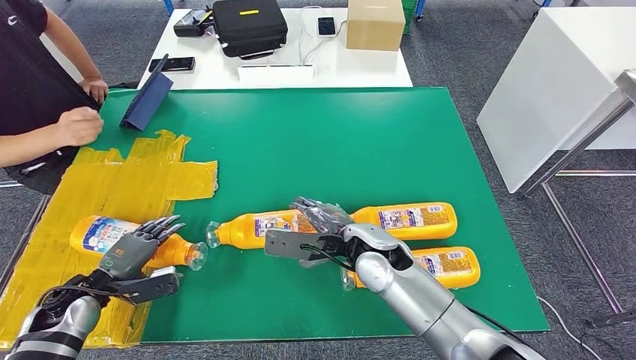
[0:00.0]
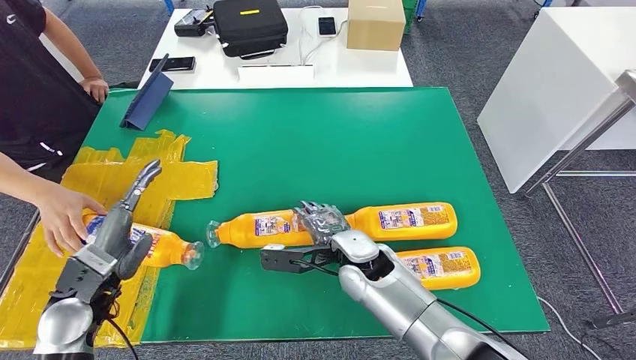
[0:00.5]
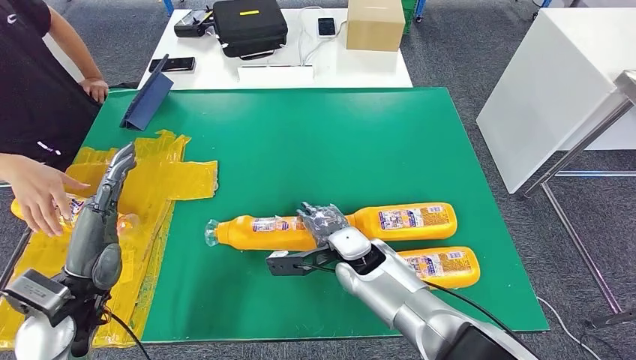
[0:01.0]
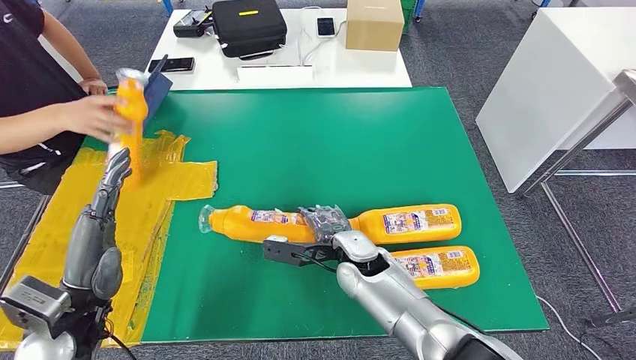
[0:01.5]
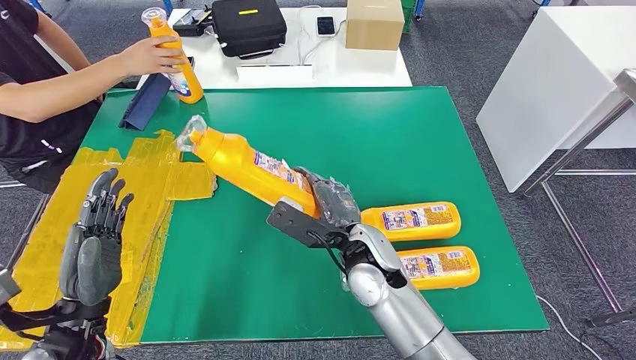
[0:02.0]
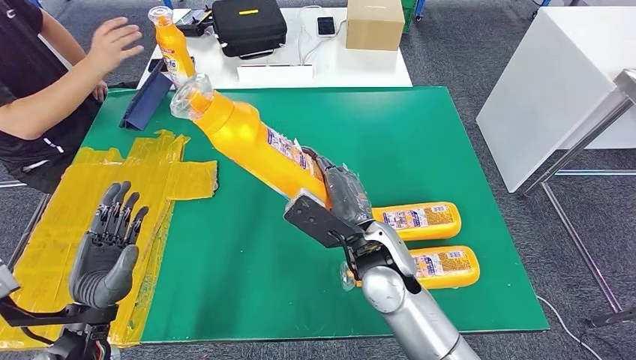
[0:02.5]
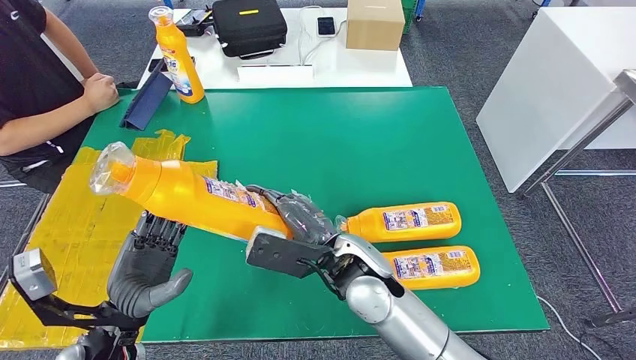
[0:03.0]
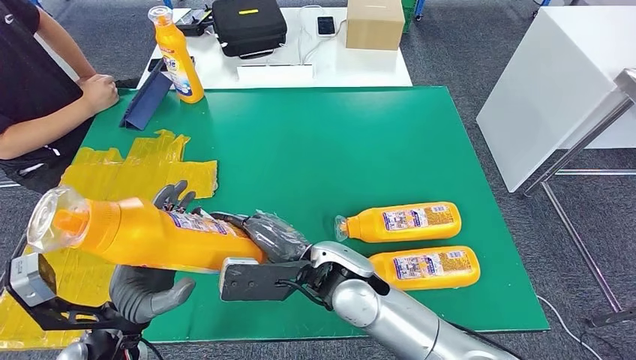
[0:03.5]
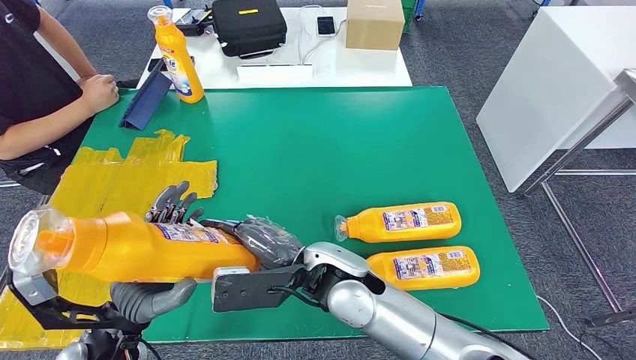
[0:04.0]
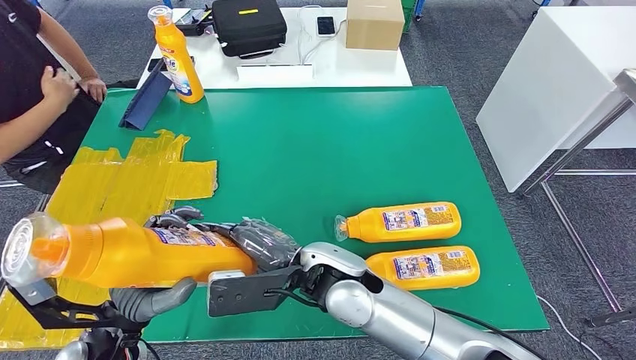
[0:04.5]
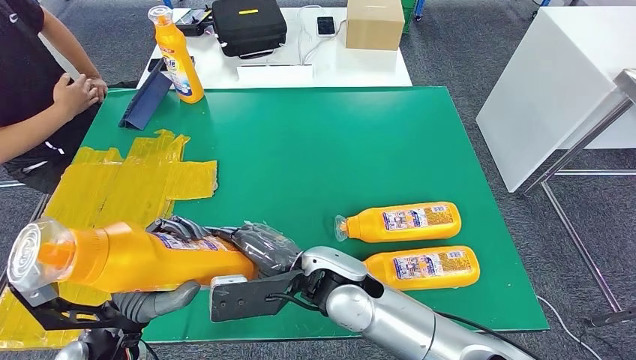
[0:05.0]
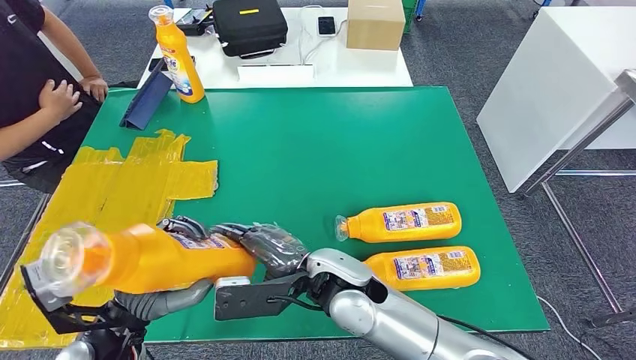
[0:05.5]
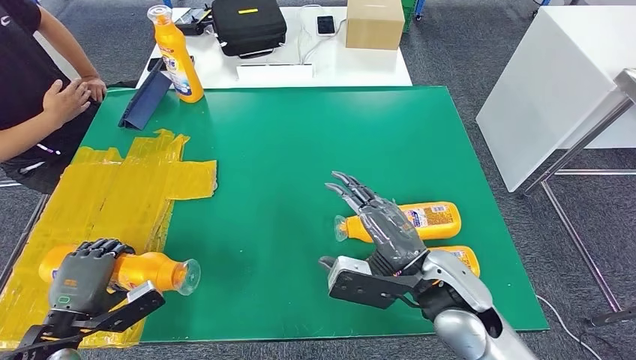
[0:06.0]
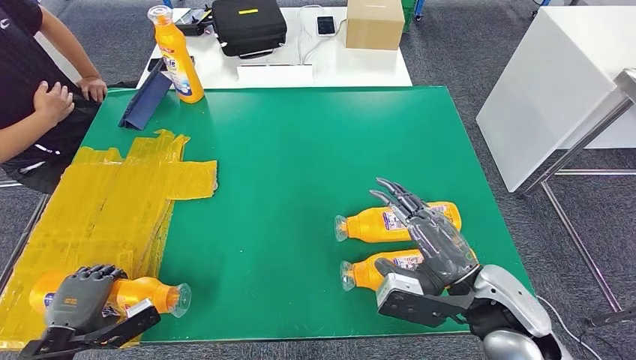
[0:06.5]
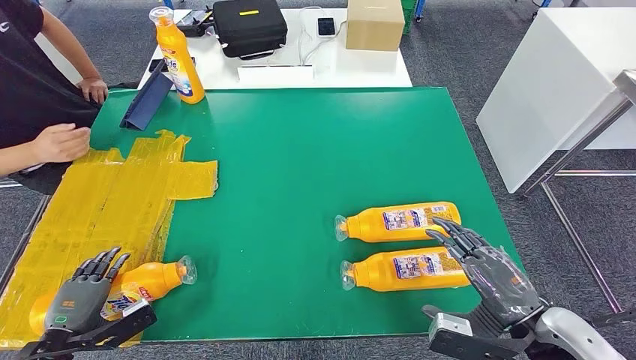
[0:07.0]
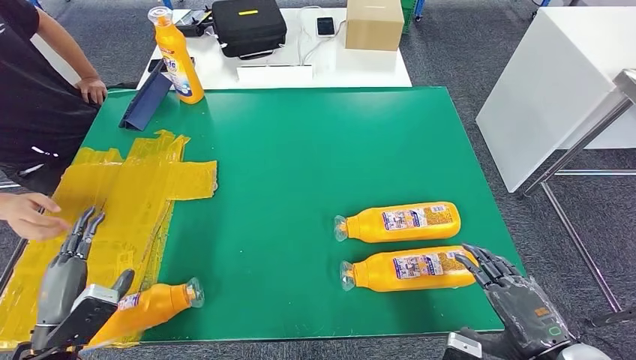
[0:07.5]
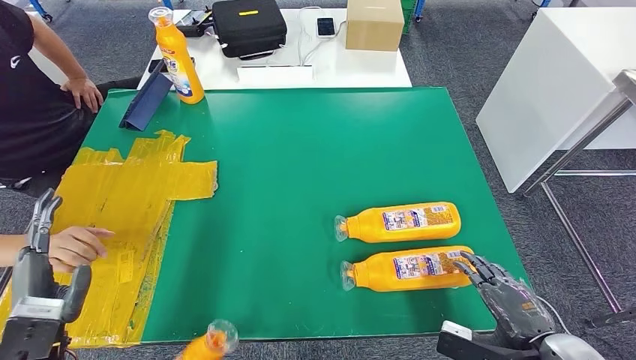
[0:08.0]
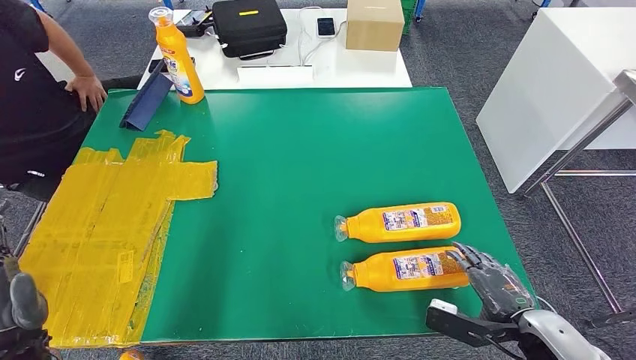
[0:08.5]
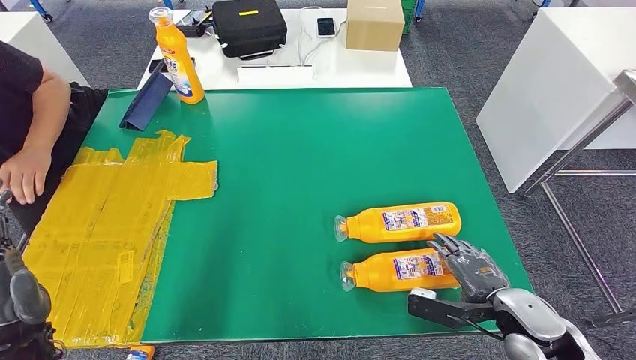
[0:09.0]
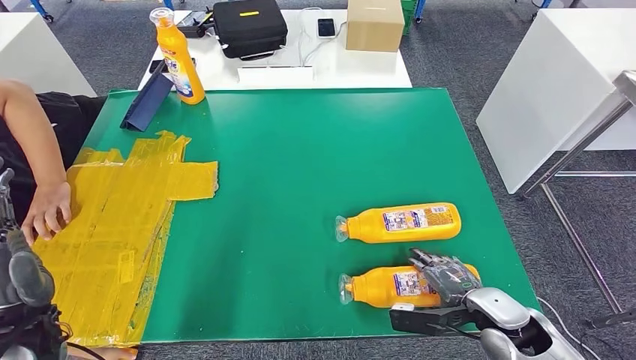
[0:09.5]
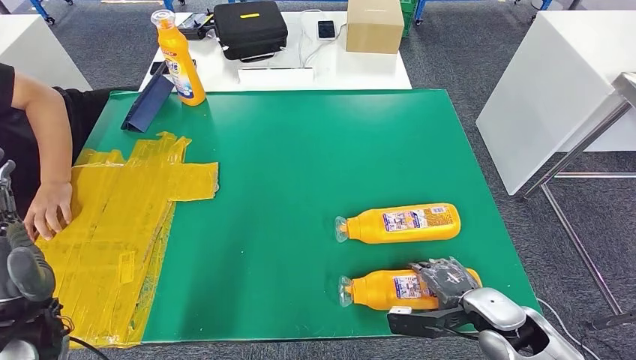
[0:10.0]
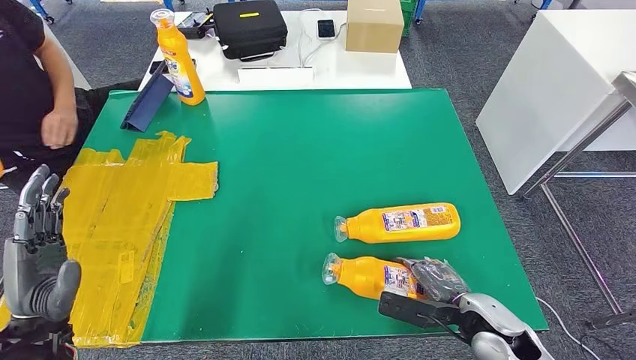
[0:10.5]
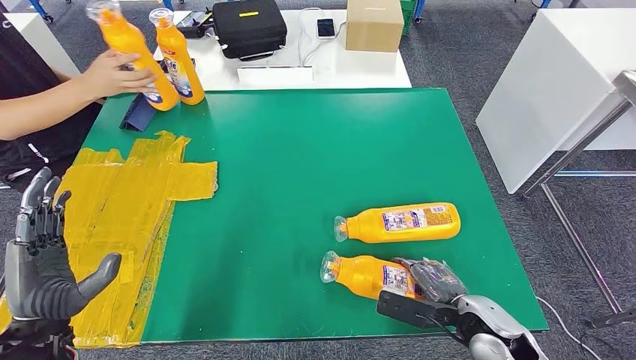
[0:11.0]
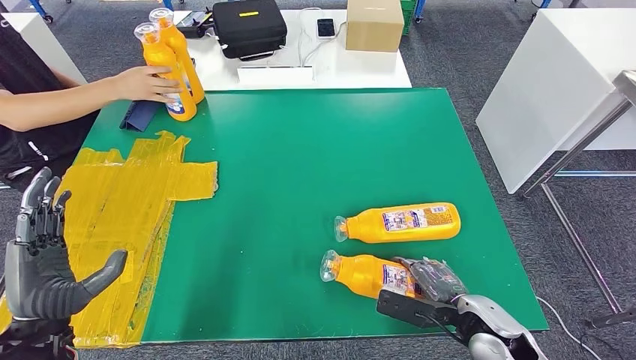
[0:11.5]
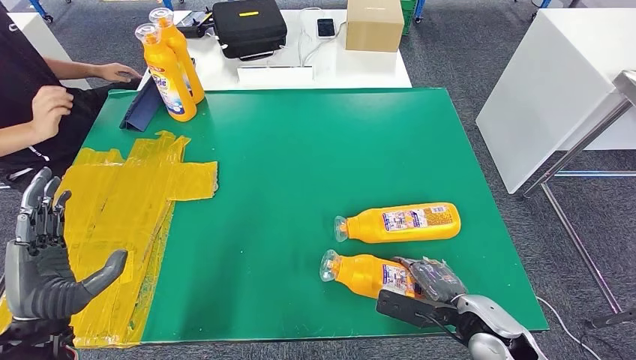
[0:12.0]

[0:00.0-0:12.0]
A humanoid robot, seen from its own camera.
Step, 0:01.0 to 0:03.0: Pick up the fast-moving consumer goods bottle from the table.
Step, 0:04.0 to 0:07.5: Flip the fast-moving consumer goods bottle to the front side.

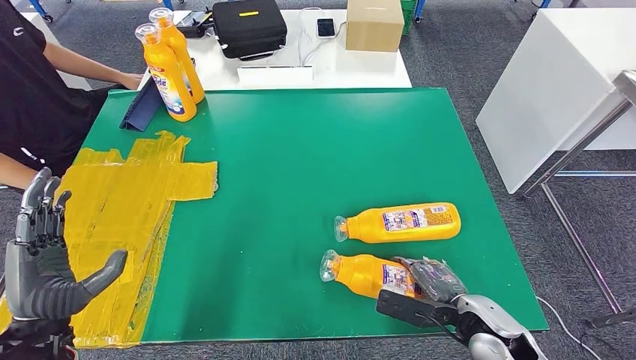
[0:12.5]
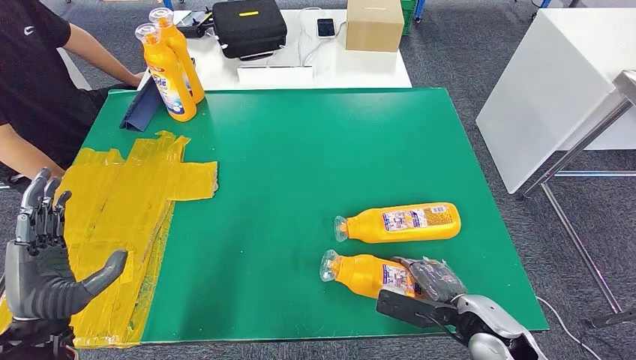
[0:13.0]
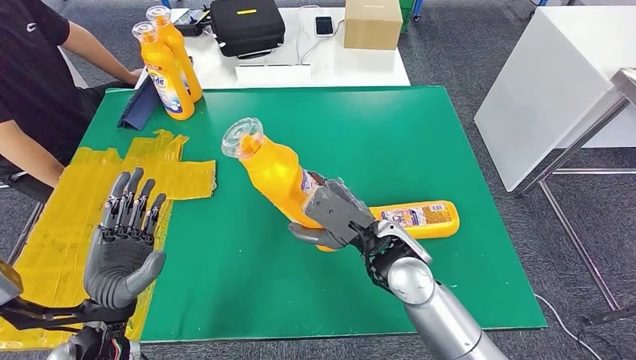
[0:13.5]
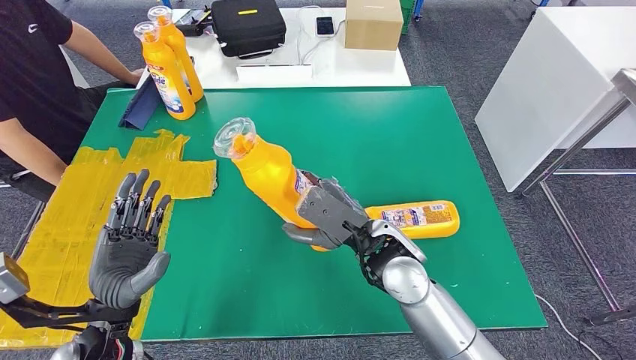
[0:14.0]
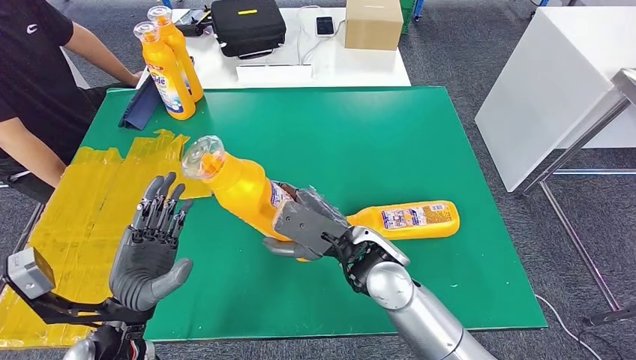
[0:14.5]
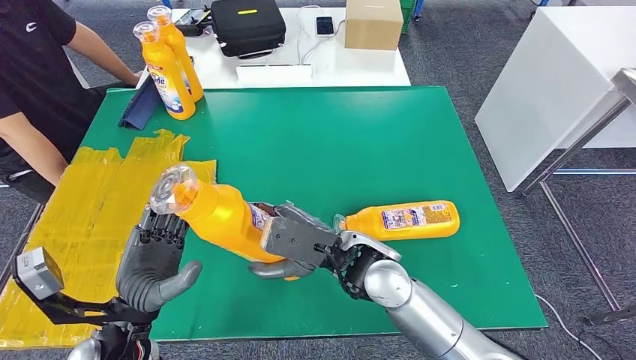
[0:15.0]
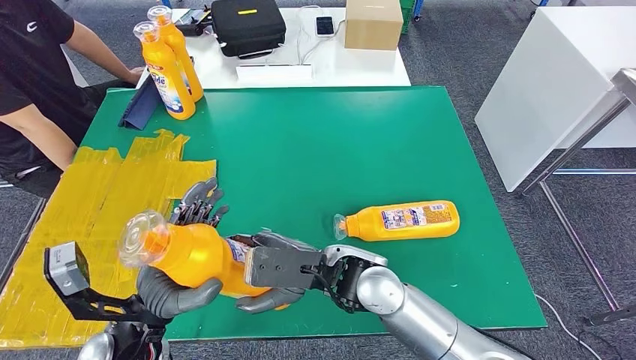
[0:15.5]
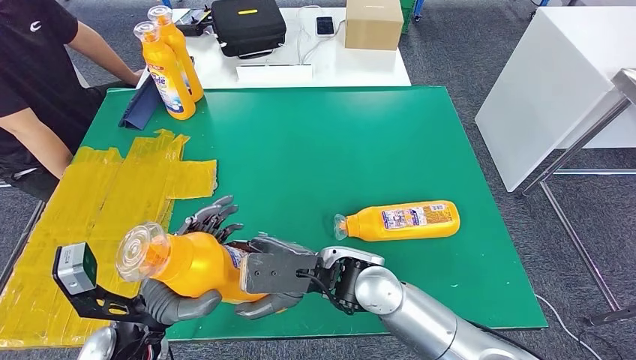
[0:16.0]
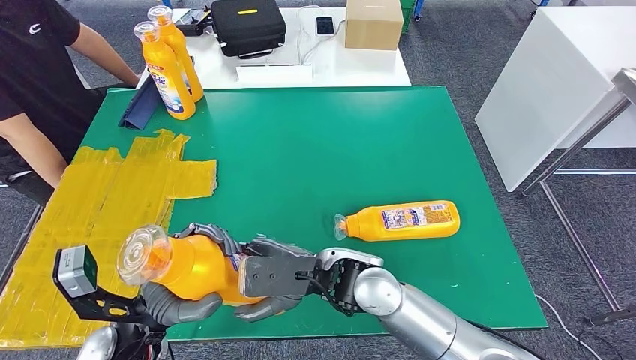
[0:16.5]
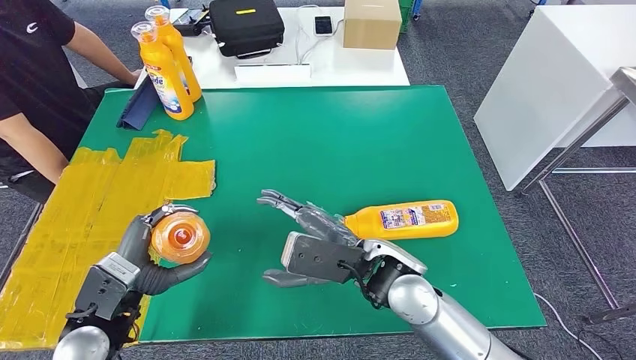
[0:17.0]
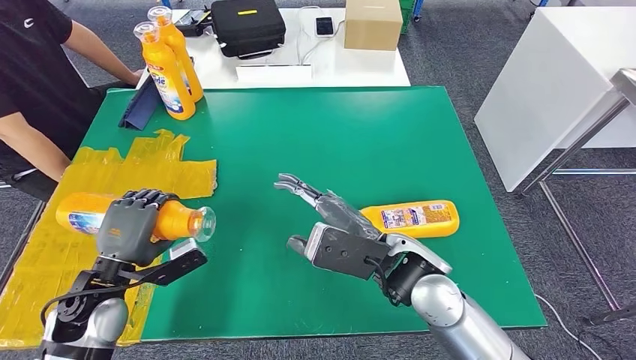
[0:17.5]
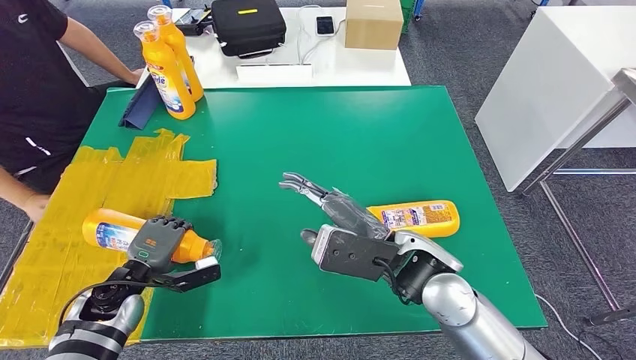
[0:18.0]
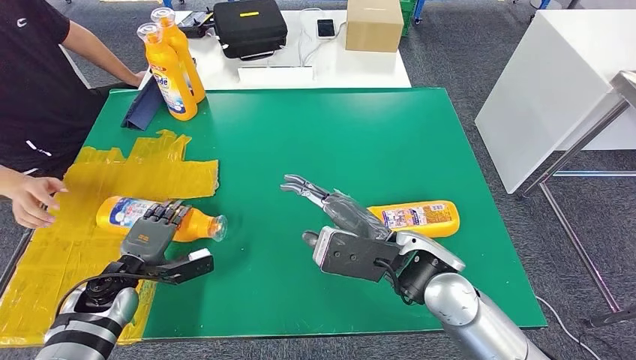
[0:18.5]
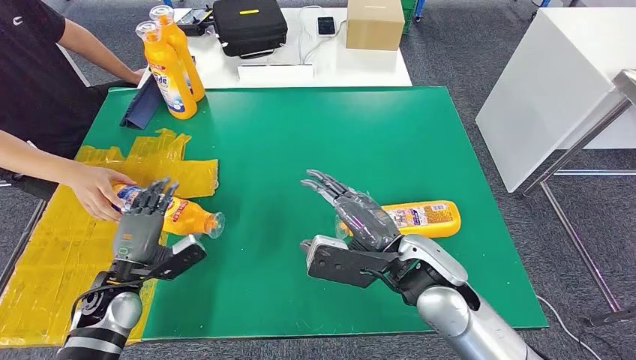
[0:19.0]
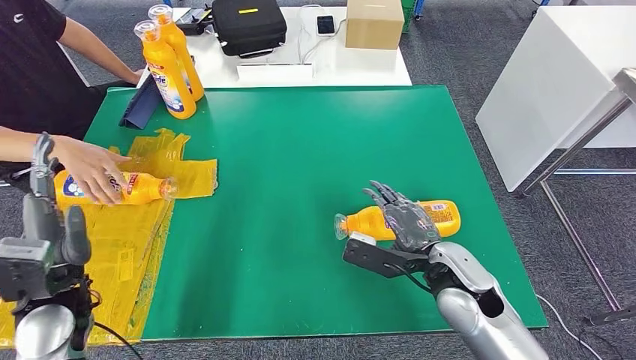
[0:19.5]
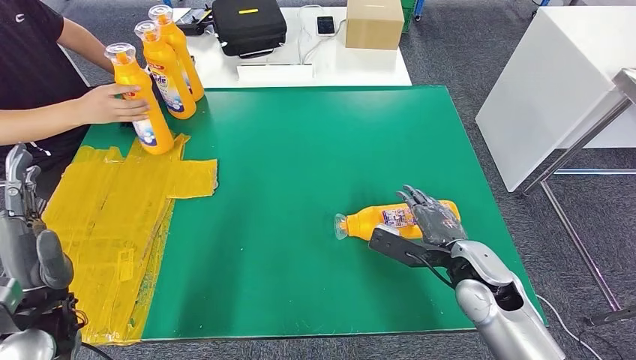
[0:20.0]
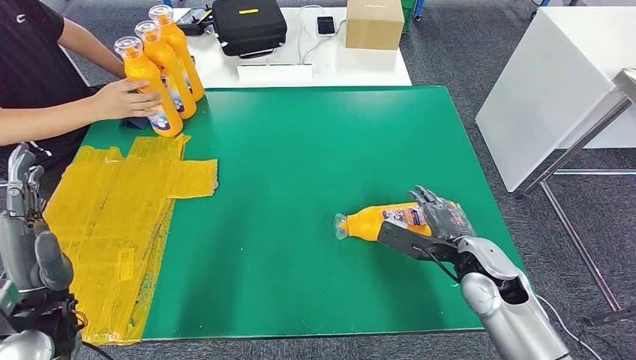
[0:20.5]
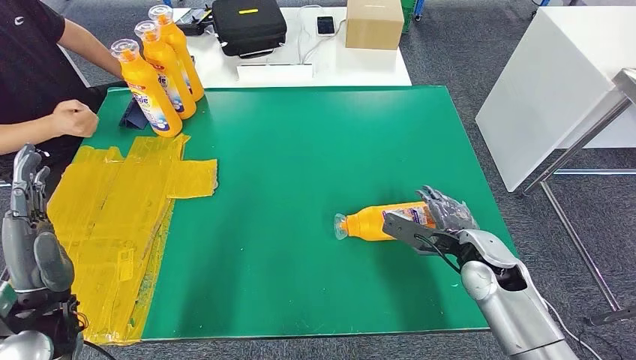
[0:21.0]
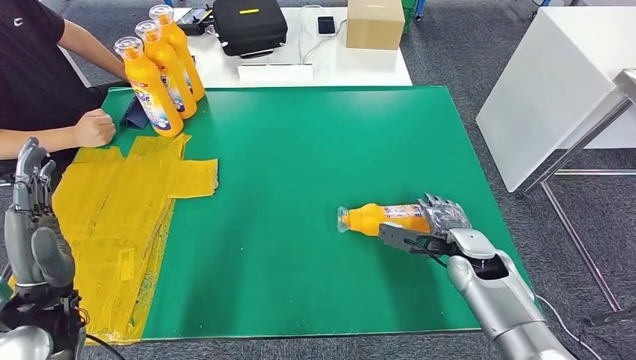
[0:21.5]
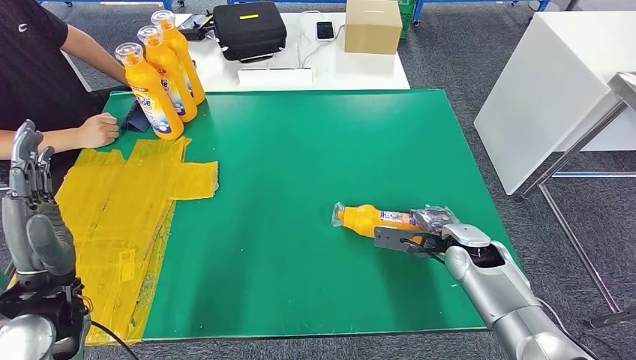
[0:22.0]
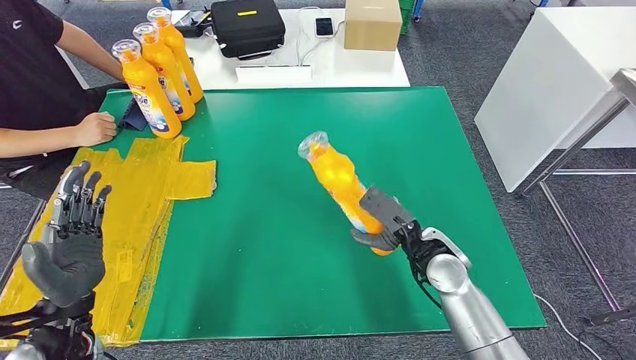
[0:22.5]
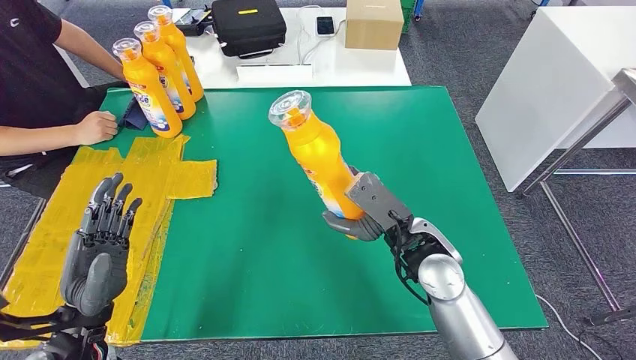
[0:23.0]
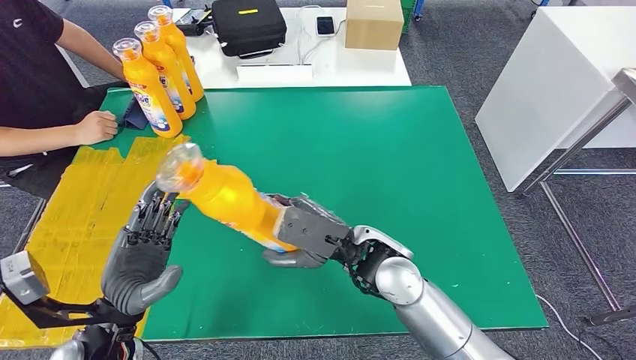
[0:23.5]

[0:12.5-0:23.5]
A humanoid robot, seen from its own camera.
Step, 0:12.5 to 0:14.5: Pick up the fast-moving consumer goods bottle from the table.
Step, 0:15.0 to 0:19.0: Flip the fast-moving consumer goods bottle to the front side.
Step, 0:19.5 to 0:23.0: Pick up the fast-moving consumer goods bottle from the table.
0:16.0 to 0:18.0: The right hand goes roughly 10 cm to the right; the left hand heads to the left, forward and downward, covering approximately 15 cm.
0:20.0 to 0:21.5: The right hand shifts about 5 cm forward.
